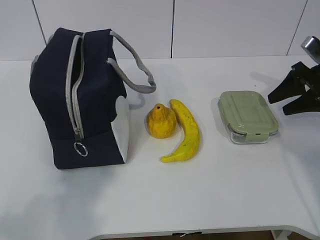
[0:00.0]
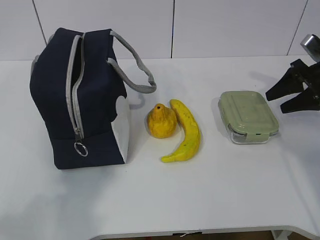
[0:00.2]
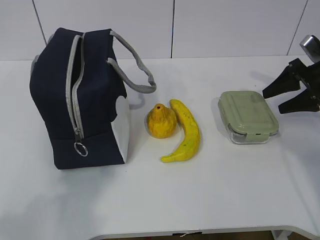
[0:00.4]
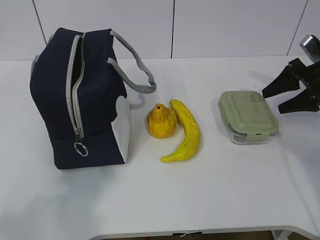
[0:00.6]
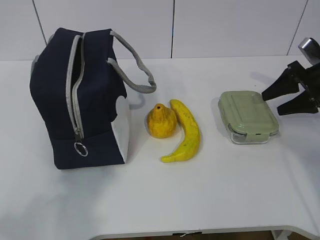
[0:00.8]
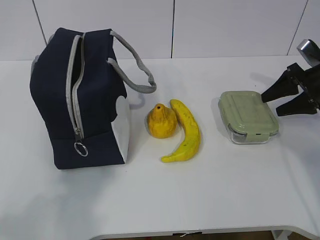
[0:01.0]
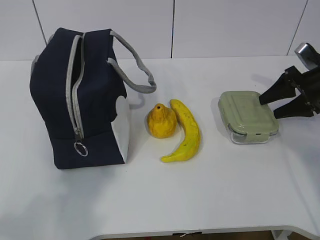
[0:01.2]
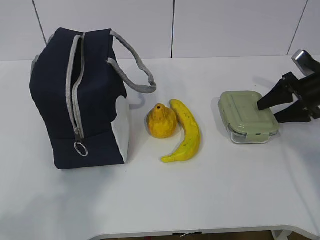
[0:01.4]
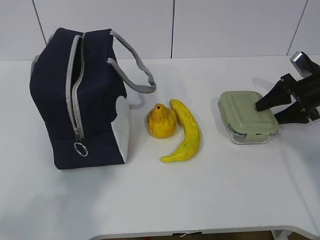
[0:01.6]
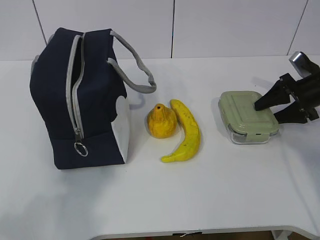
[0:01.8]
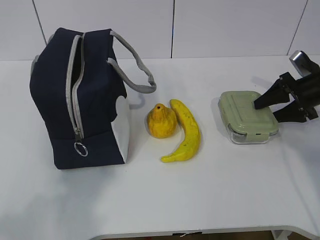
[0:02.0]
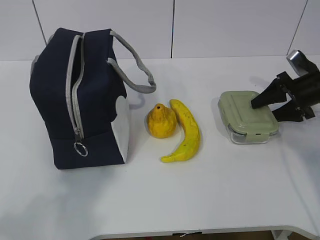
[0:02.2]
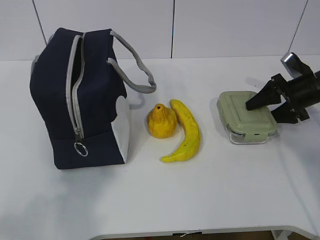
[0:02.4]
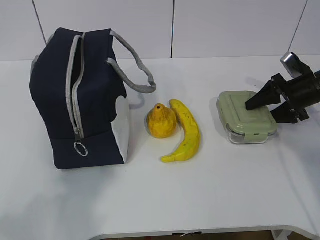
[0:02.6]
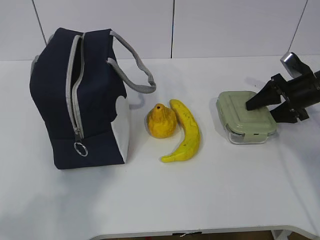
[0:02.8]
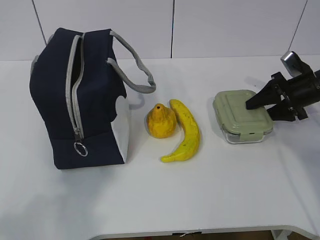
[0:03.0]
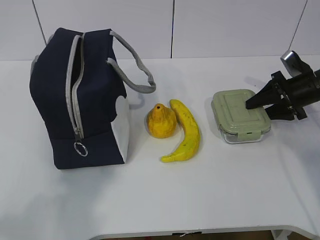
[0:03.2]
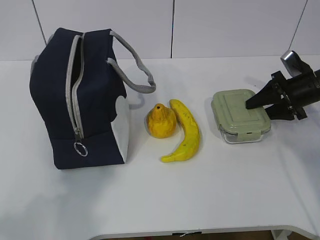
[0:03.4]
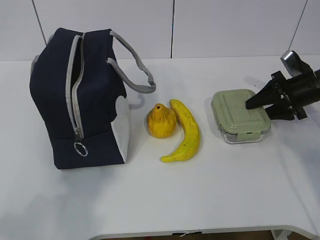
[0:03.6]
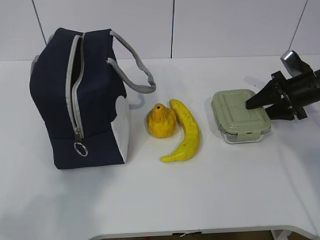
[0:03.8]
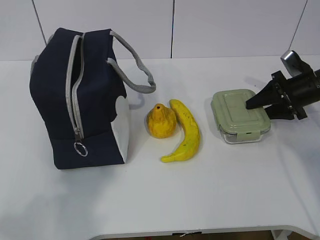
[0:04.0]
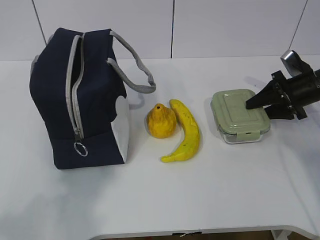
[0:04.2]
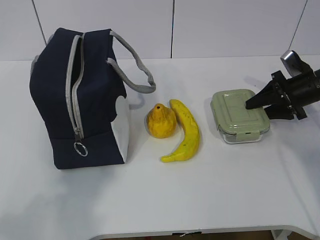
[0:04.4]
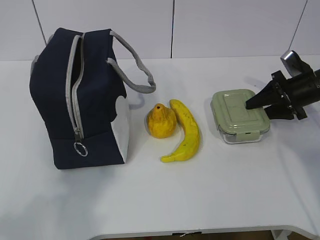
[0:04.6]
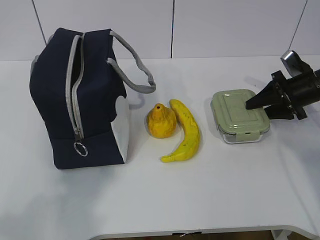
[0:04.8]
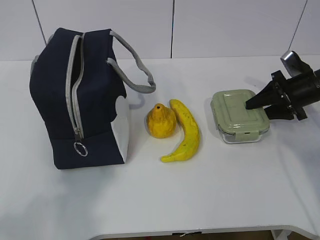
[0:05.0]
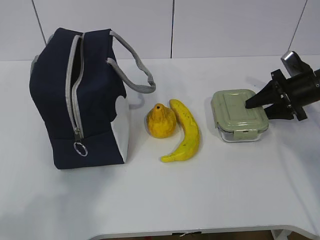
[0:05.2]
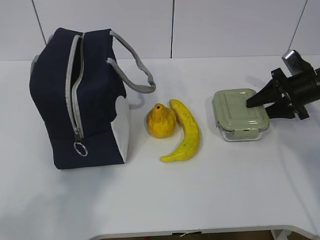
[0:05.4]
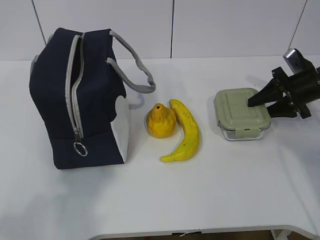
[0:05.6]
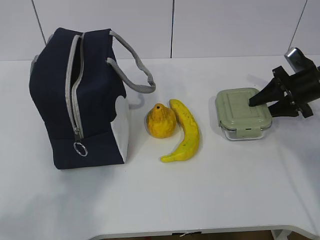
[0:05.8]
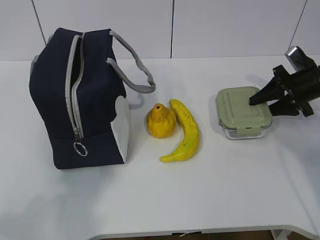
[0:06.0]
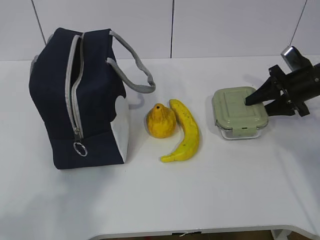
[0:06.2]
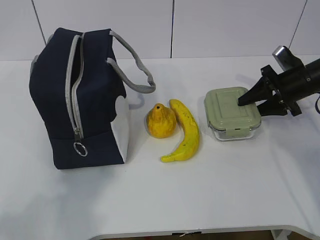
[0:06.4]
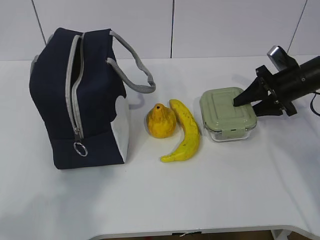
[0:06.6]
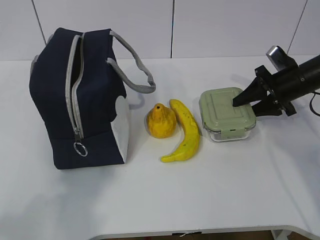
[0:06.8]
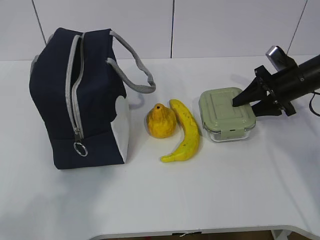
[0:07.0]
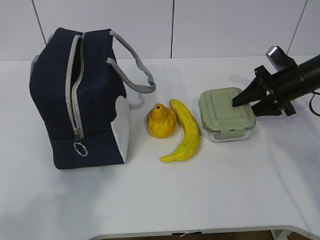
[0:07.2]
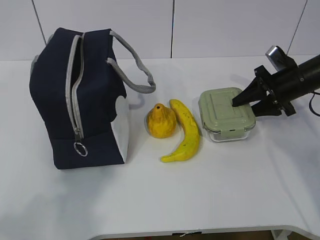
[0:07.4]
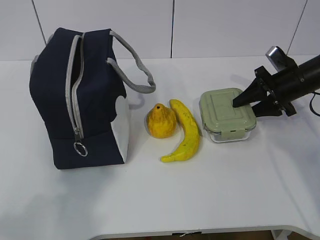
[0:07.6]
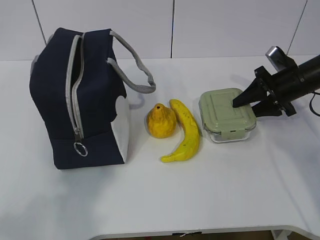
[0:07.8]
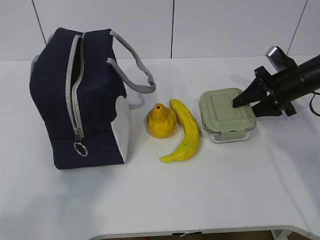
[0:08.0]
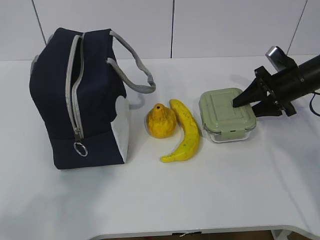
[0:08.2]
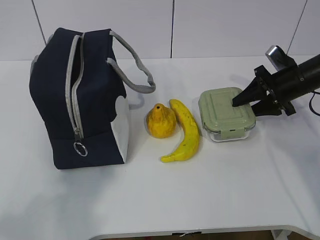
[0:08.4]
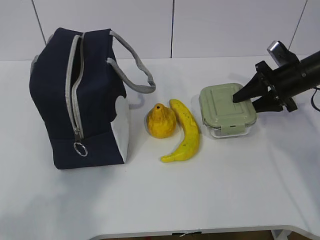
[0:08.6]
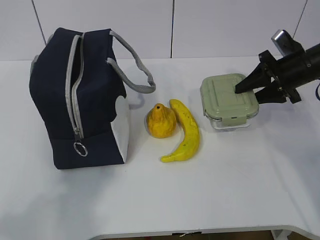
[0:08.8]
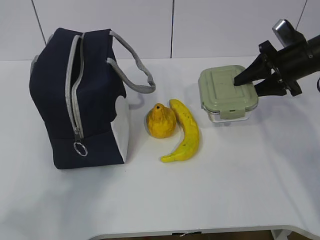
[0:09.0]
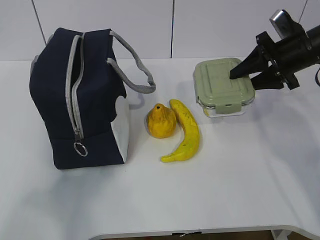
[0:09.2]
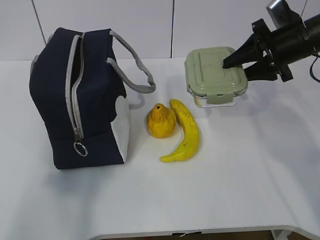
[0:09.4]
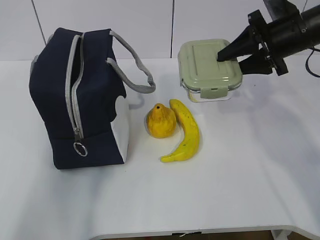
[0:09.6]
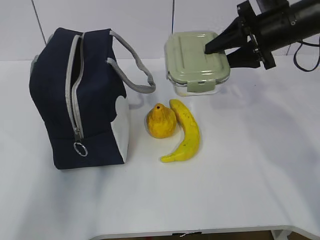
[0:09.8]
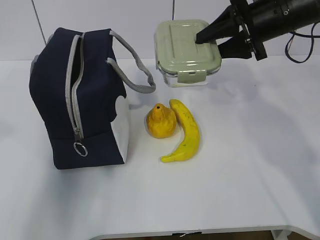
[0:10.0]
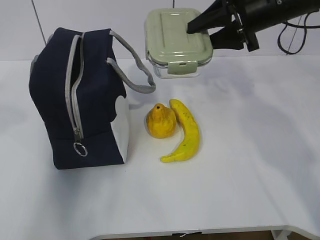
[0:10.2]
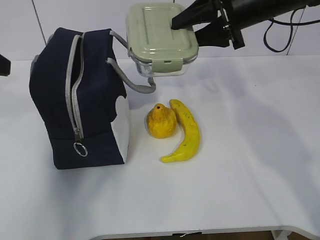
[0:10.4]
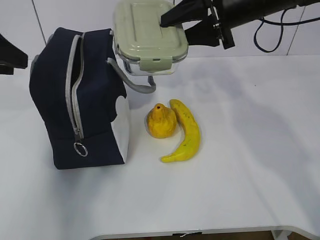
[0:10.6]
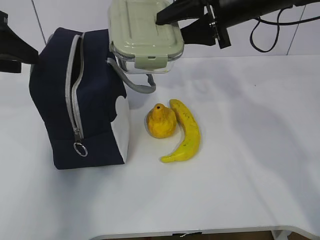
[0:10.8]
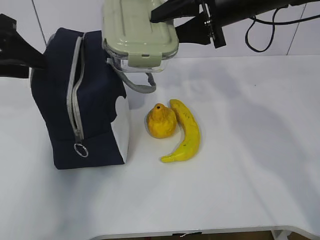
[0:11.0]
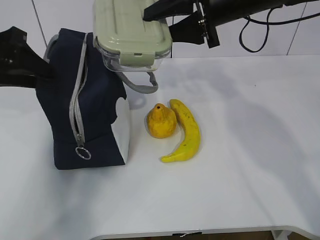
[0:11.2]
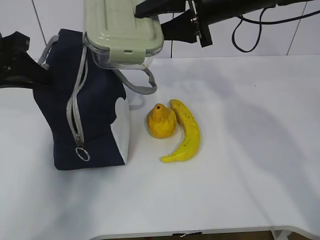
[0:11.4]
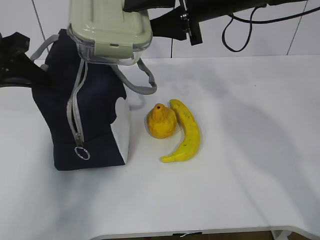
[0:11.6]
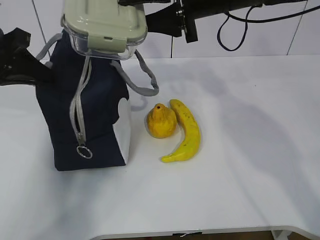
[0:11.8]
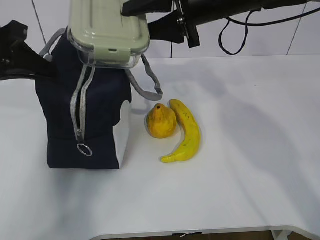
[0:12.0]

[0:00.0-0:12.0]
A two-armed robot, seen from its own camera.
Step, 0:00.0 to 0:05.4: Grab the lunch box with your right hand.
Step, 0:08.8 to 0:11.2: Place it into the bag with your right hand.
0:00.0 to 0:03.0: The grippers move only a little.
0:03.0 to 0:04.4: Both grippers stay about where they are.
0:04.4 to 0:07.6: The grippers move only a little.
0:07.6 to 0:09.0: The right gripper travels upward by some 5 cm.
0:09.0 to 0:10.4: The left gripper shifts approximately 25 cm forward. The right gripper moves to the left and upward, roughly 15 cm.
0:10.4 to 0:12.0: The right gripper moves to the left, roughly 5 cm. Meanwhile the left gripper moves forward, roughly 5 cm, and closes its fingers.

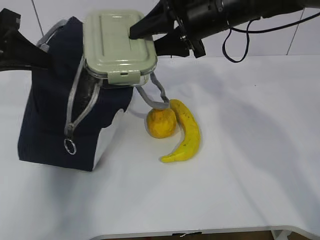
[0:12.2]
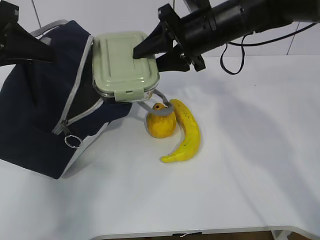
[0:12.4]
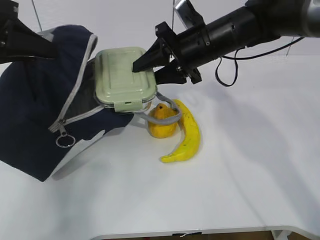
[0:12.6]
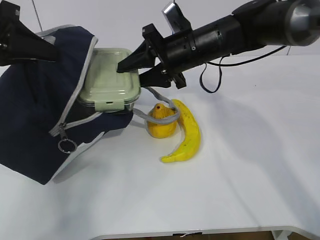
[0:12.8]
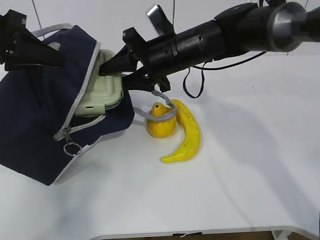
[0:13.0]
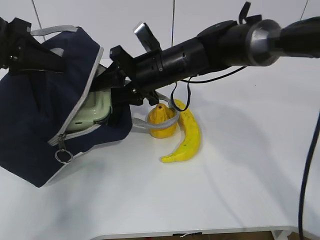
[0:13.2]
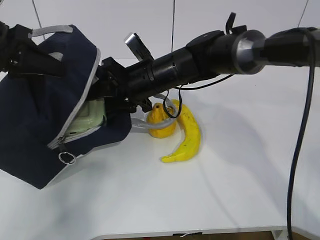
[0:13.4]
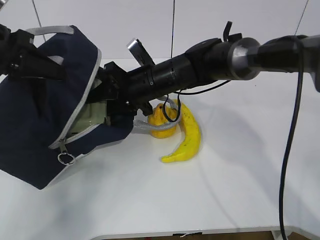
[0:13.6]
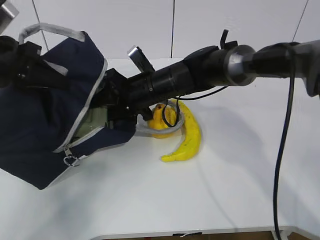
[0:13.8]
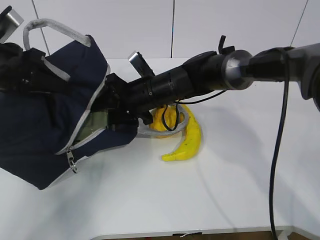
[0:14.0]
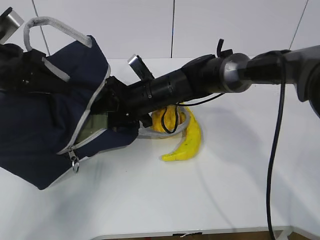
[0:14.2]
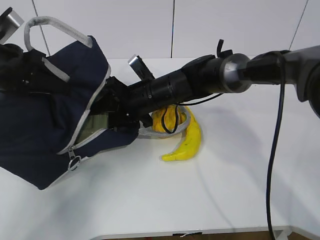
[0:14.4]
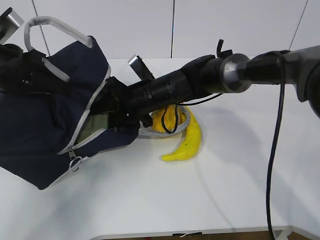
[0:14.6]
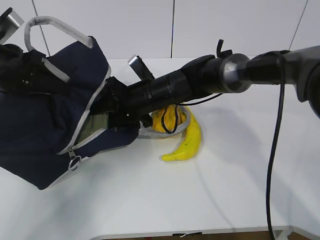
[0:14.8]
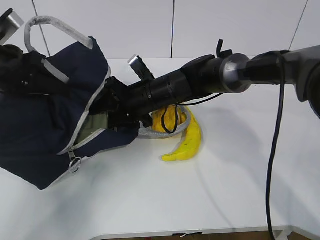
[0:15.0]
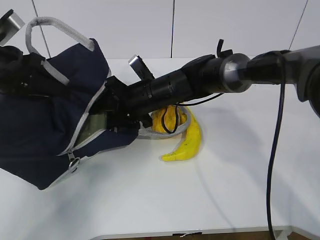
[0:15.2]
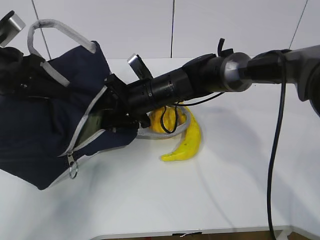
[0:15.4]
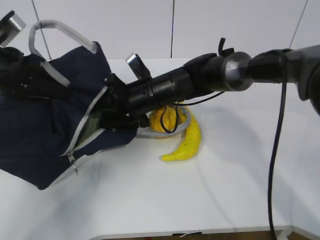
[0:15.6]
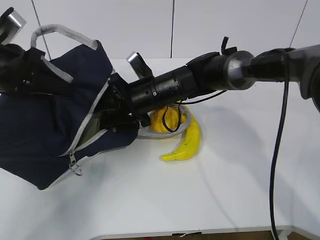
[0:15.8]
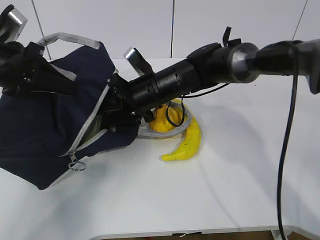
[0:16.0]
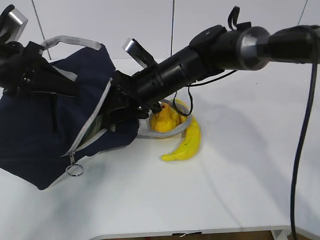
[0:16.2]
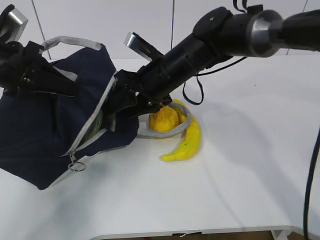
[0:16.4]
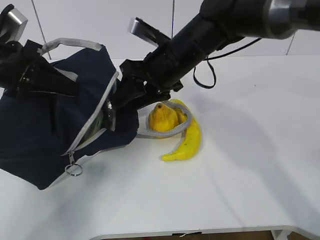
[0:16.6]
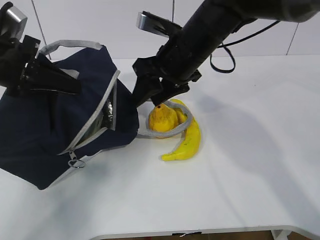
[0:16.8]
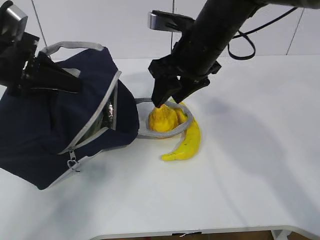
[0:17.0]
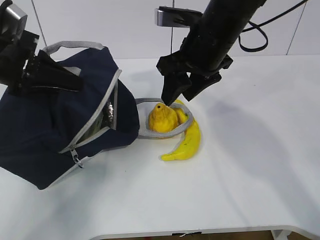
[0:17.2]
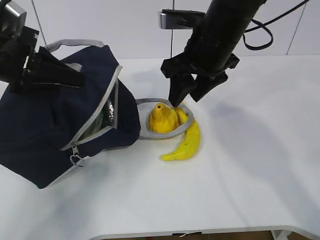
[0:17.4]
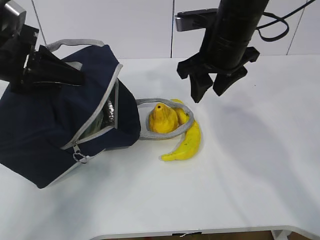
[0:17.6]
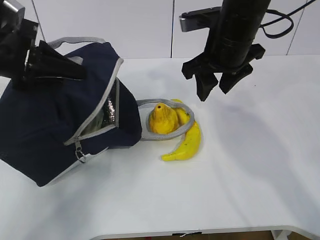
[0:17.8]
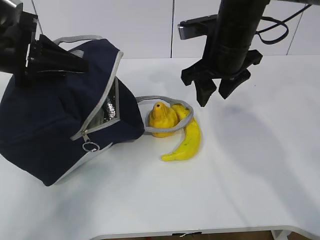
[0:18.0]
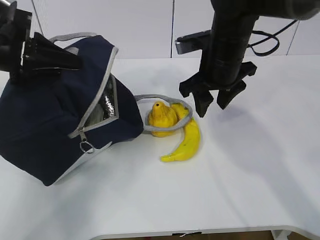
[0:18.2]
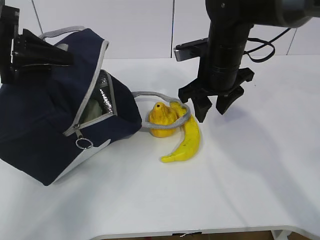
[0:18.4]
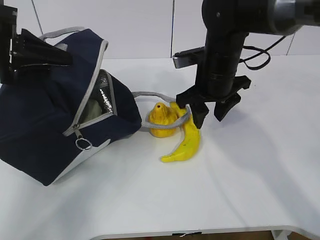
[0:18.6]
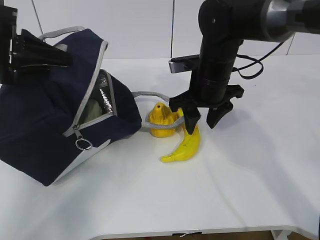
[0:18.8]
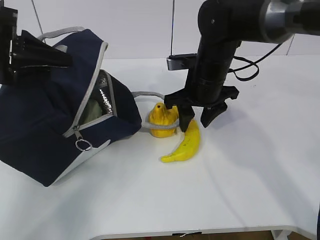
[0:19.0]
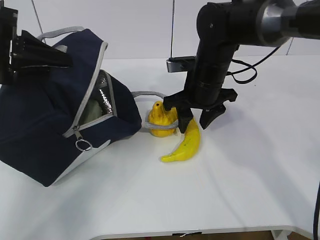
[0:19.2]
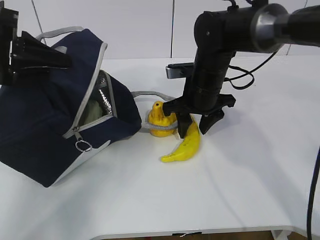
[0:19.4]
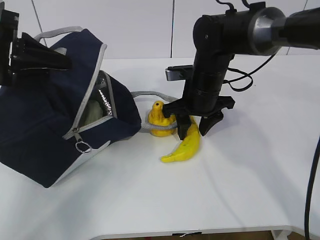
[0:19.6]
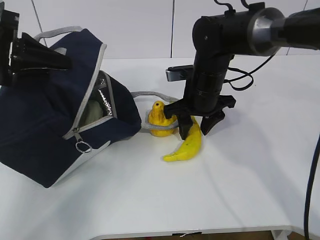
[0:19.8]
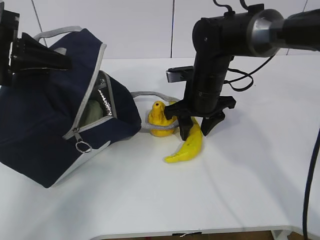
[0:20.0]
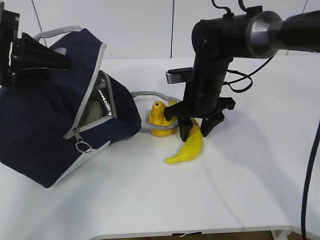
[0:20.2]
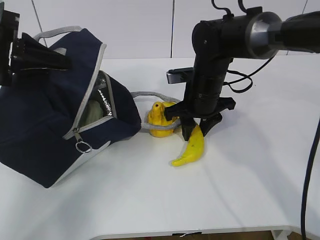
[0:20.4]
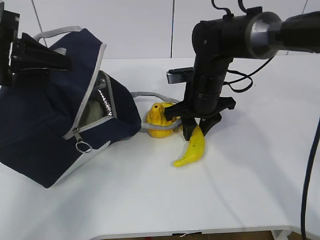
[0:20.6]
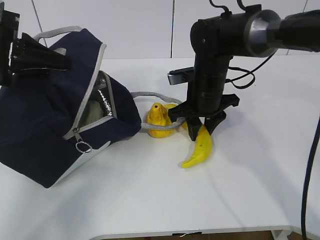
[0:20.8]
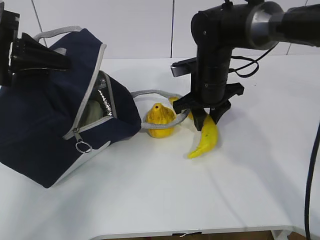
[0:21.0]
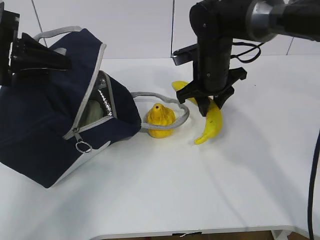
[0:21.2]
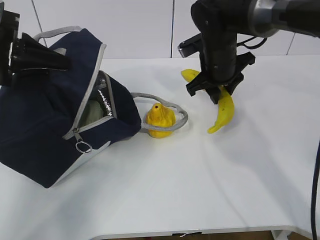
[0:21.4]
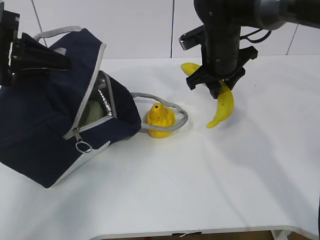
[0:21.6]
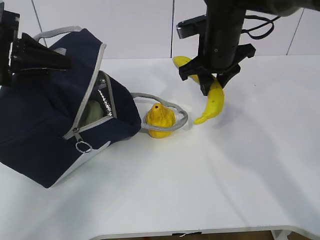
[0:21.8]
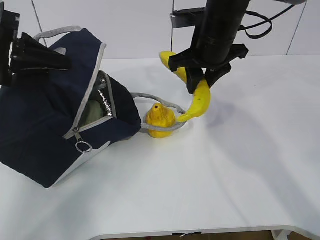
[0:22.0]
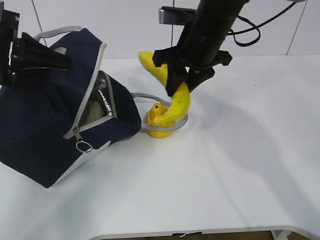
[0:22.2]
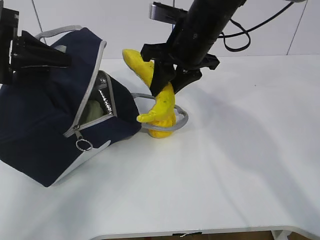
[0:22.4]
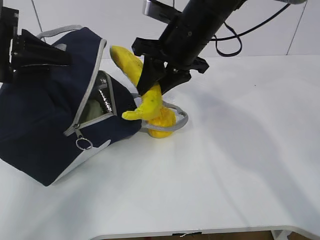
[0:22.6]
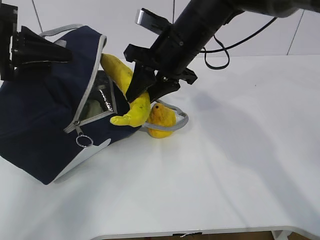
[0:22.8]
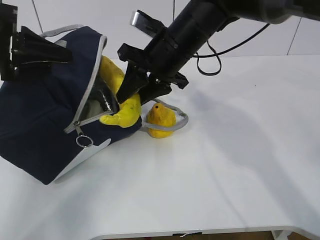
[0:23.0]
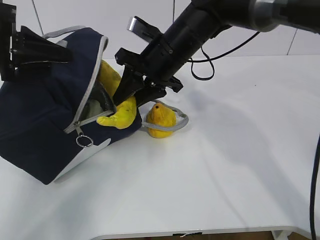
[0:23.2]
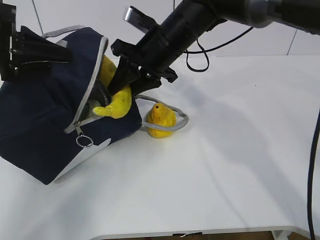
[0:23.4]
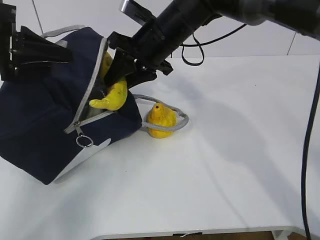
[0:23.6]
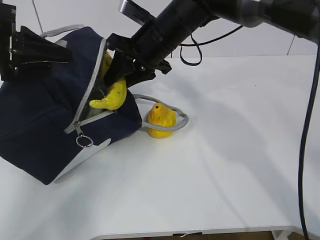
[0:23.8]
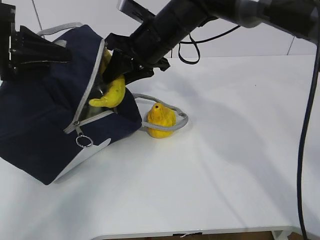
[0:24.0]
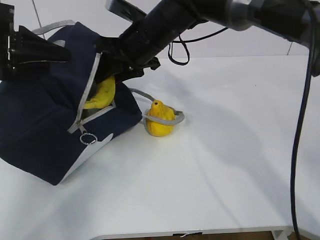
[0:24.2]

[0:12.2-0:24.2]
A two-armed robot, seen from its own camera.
Step, 0:12.2 to 0:15.8: Grab the banana with your right hand.
Step, 0:16.0 to 0:20.0: Place it into the bag with your right hand.
0:12.2 to 0:13.8: The right gripper is displaced downward and to the left by approximately 15 cm.
0:13.8 to 0:15.2: The grippers move only a little.
0:15.2 to 0:16.6: The right gripper goes approximately 10 cm upward.
0:16.6 to 0:18.2: The right gripper travels to the right by roughly 5 cm.
0:18.2 to 0:19.8: The right gripper shifts about 5 cm downward.
0:19.8 to 0:21.2: The grippers move only a little.
0:21.2 to 0:22.6: The right gripper moves upward, about 10 cm.
0:22.6 to 0:24.2: The right gripper travels to the left by approximately 5 cm.
